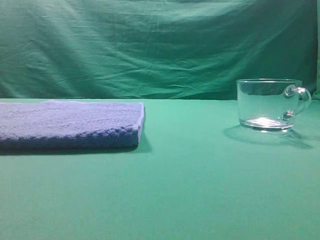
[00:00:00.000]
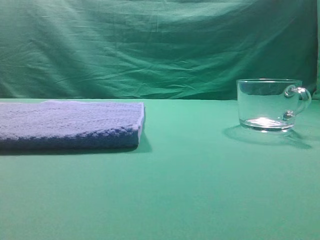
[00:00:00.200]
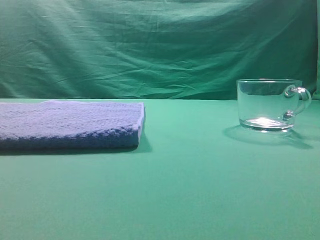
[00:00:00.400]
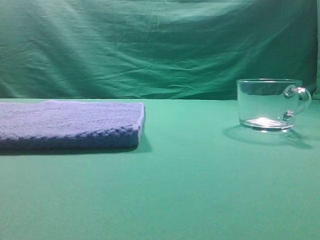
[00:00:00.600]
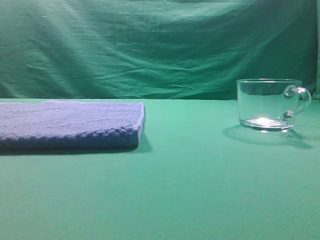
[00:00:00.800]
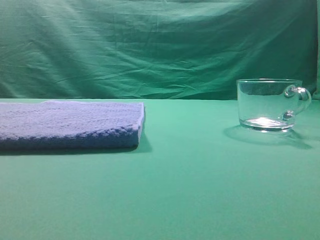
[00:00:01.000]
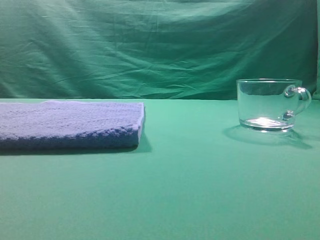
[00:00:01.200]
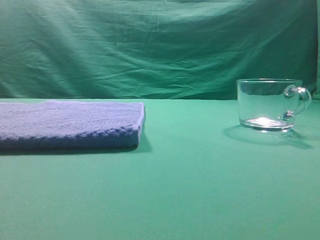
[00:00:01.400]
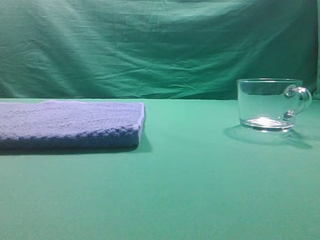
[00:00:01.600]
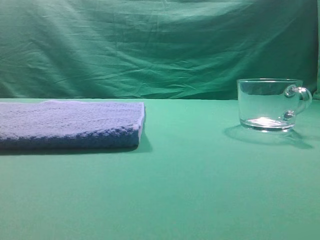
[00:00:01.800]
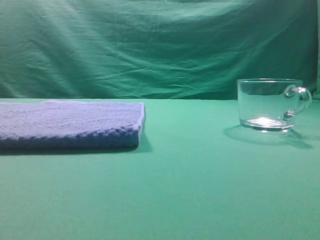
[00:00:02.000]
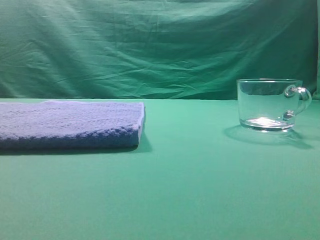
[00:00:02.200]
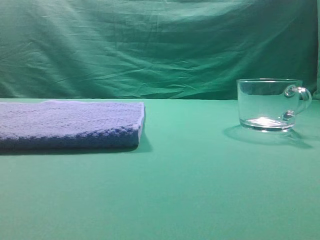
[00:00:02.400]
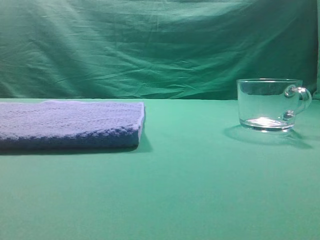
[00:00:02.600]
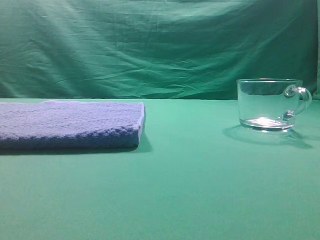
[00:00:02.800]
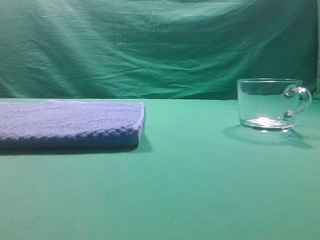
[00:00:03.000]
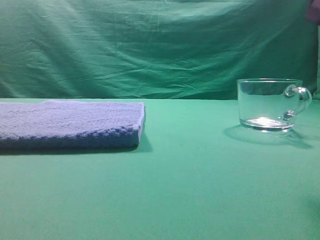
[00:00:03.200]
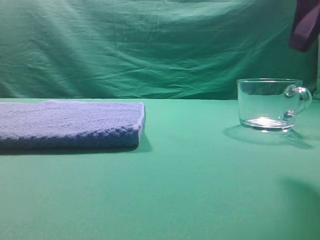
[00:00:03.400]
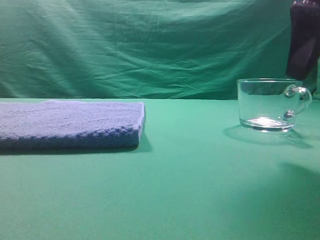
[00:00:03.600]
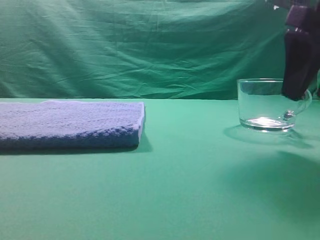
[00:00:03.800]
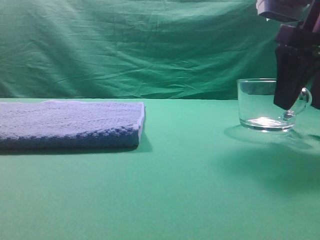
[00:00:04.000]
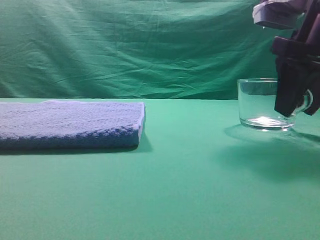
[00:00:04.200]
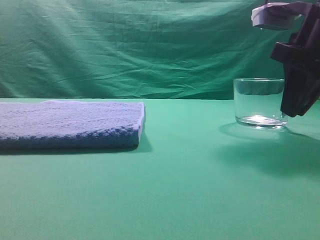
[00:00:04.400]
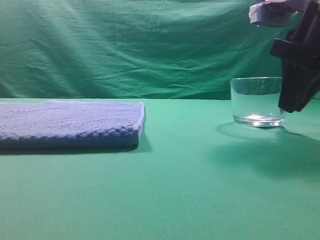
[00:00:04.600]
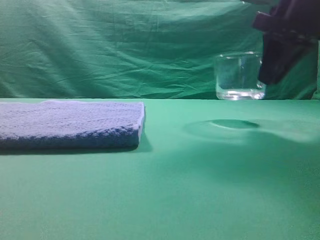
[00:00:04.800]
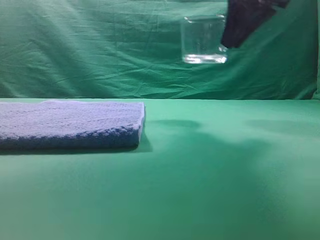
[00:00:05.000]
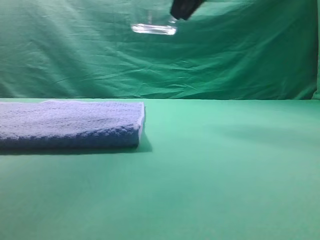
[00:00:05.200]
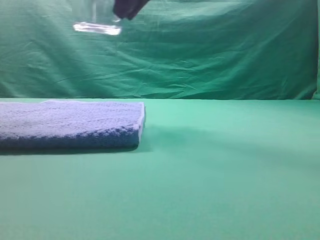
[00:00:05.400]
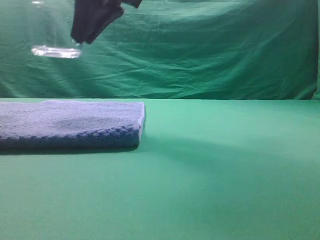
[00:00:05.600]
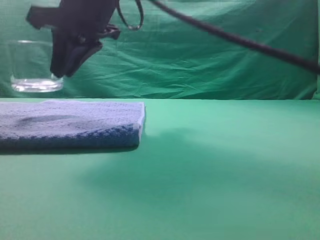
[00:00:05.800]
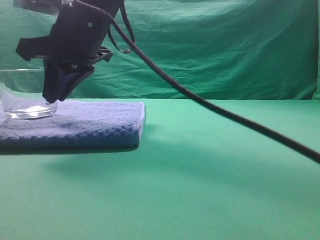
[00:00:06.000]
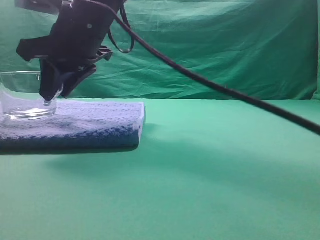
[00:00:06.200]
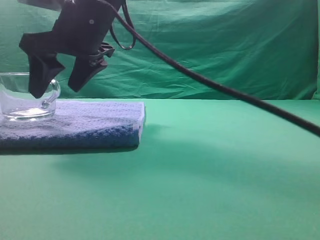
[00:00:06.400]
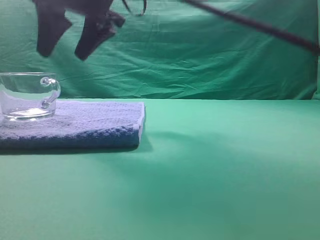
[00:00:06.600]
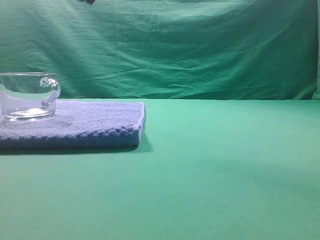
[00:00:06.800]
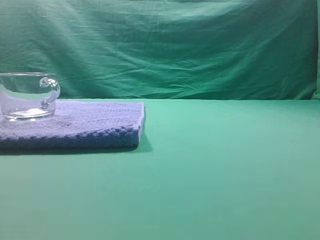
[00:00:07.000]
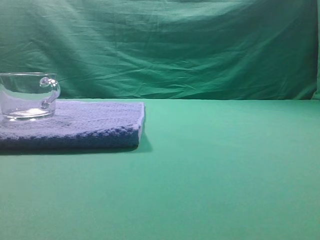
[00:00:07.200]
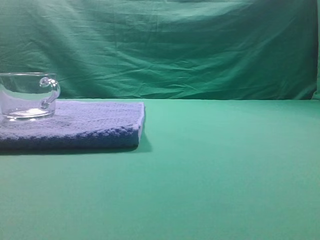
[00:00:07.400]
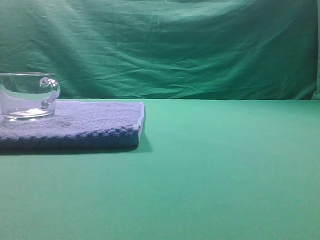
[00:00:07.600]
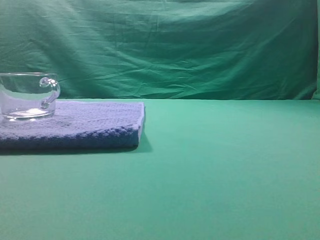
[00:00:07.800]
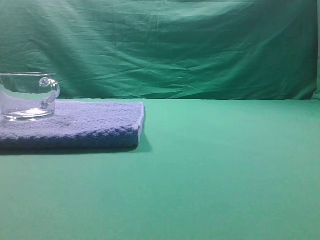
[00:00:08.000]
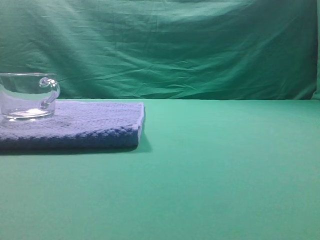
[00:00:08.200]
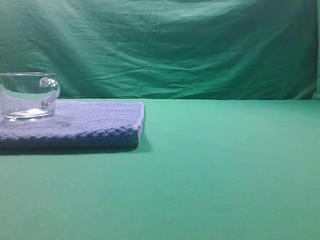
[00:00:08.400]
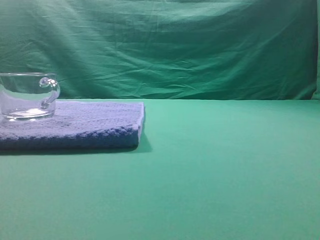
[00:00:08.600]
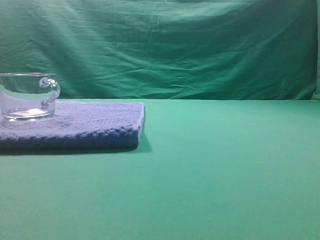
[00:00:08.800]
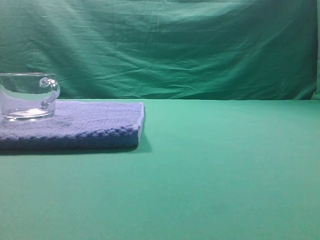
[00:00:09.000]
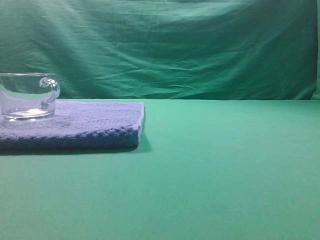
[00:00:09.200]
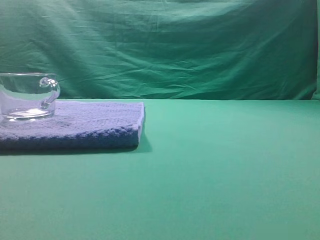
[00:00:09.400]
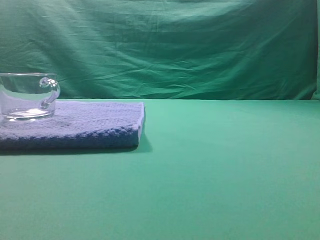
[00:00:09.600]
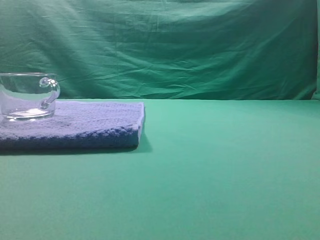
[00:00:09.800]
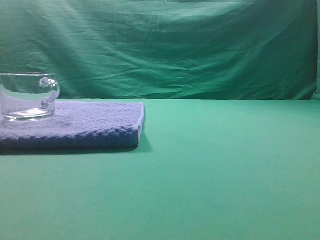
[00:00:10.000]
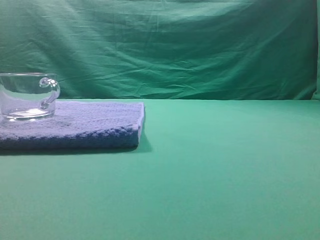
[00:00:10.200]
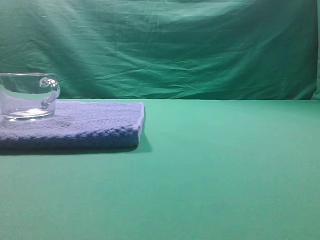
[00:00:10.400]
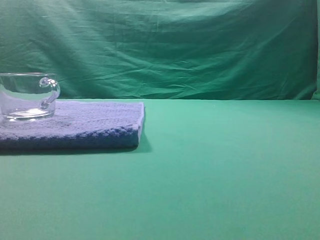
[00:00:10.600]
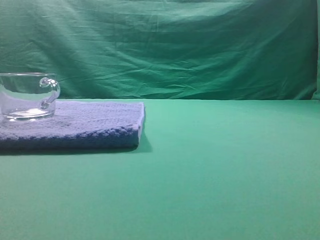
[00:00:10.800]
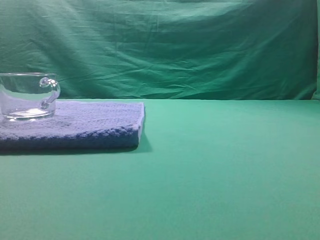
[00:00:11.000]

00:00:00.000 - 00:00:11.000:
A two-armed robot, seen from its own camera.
Task of the whole recording: grasp the transparent glass cup and place it within the blue towel.
Step, 00:00:00.000 - 00:00:04.600: Grasp the transparent glass cup.
Step, 00:00:04.800 - 00:00:06.600: Place the glass cup on the blue zone.

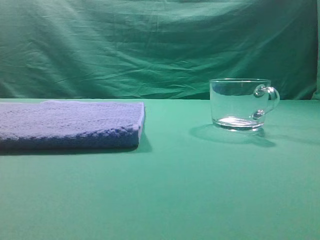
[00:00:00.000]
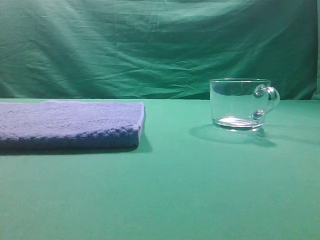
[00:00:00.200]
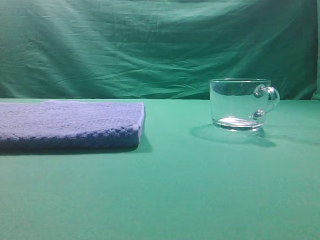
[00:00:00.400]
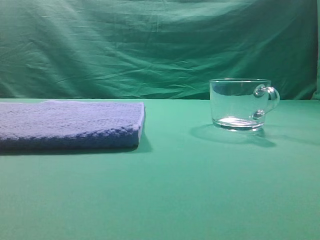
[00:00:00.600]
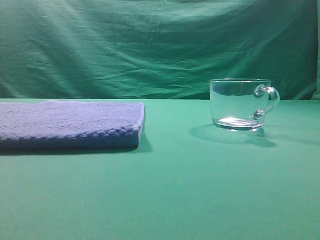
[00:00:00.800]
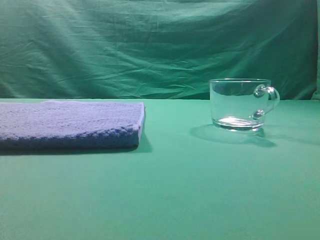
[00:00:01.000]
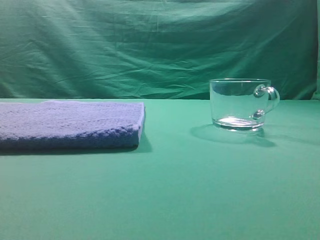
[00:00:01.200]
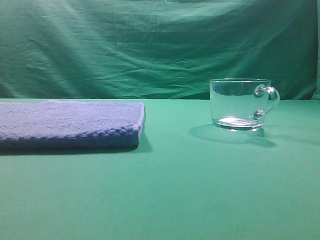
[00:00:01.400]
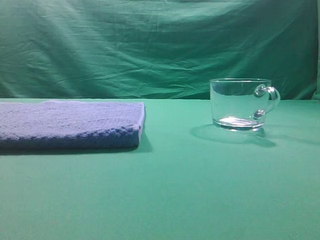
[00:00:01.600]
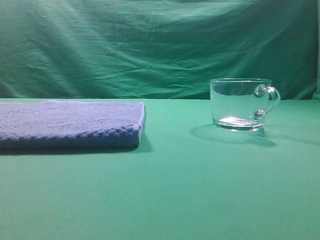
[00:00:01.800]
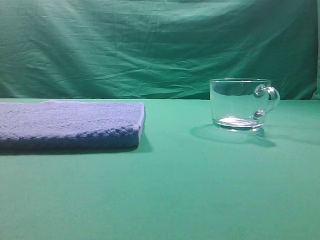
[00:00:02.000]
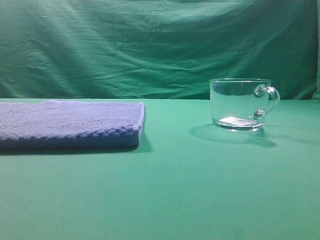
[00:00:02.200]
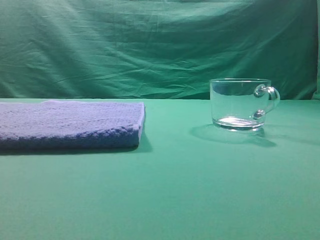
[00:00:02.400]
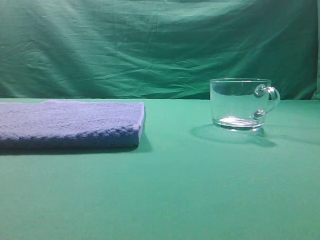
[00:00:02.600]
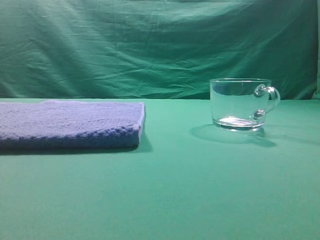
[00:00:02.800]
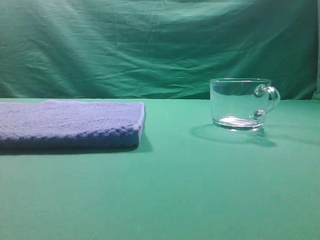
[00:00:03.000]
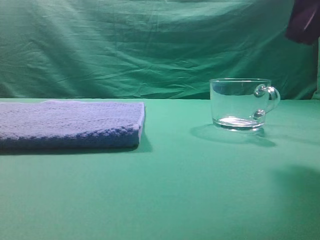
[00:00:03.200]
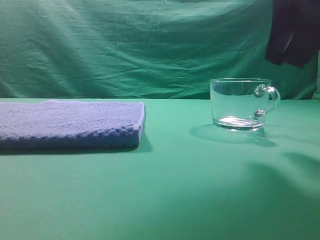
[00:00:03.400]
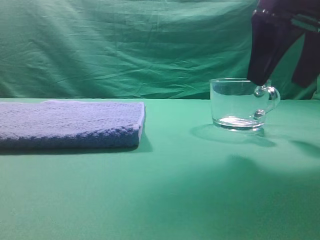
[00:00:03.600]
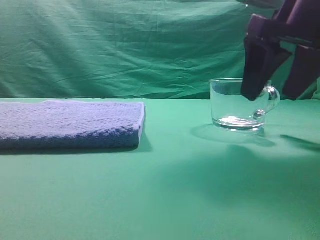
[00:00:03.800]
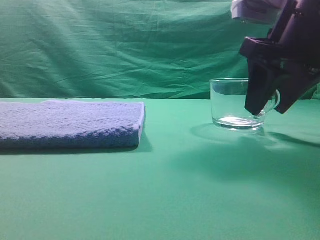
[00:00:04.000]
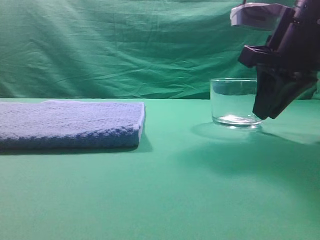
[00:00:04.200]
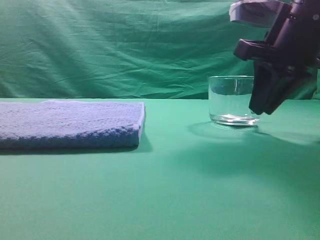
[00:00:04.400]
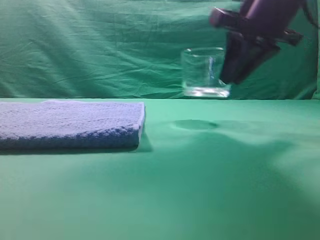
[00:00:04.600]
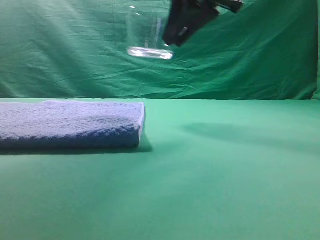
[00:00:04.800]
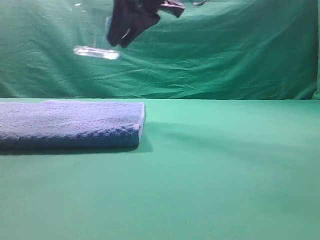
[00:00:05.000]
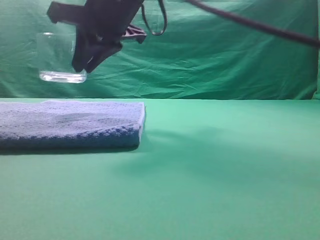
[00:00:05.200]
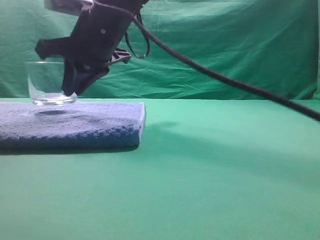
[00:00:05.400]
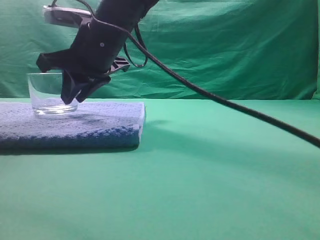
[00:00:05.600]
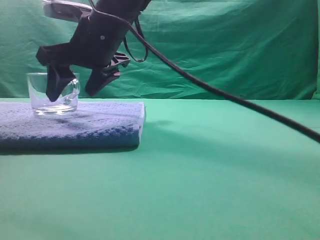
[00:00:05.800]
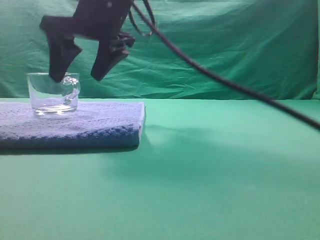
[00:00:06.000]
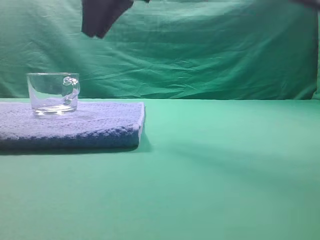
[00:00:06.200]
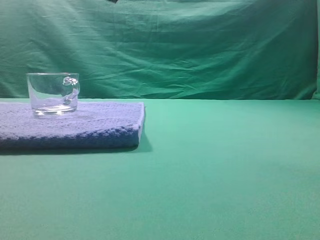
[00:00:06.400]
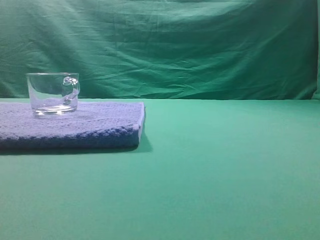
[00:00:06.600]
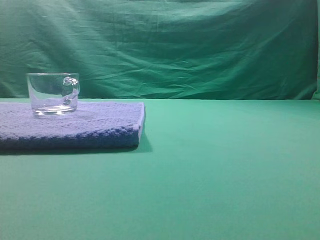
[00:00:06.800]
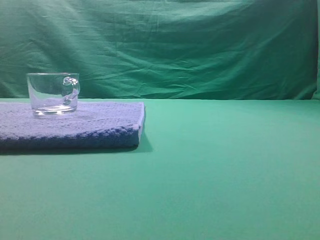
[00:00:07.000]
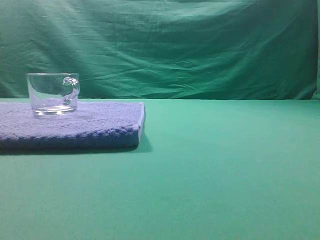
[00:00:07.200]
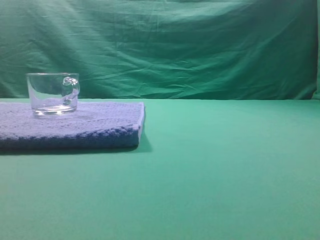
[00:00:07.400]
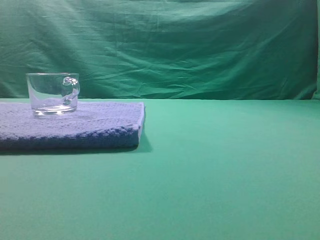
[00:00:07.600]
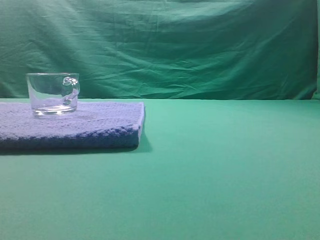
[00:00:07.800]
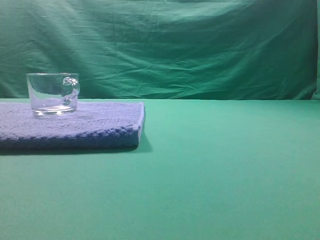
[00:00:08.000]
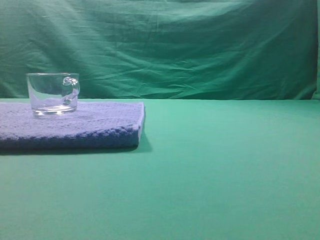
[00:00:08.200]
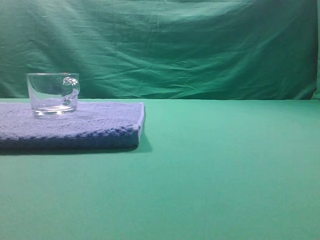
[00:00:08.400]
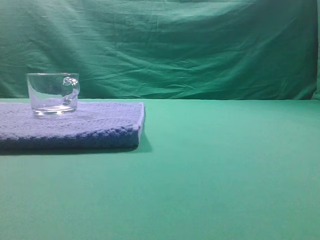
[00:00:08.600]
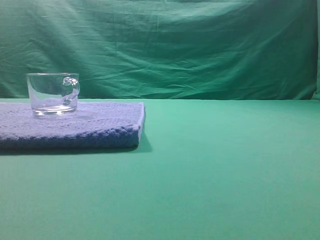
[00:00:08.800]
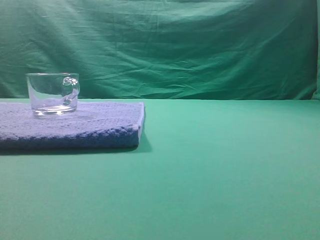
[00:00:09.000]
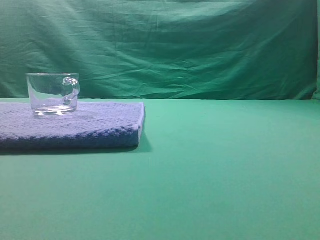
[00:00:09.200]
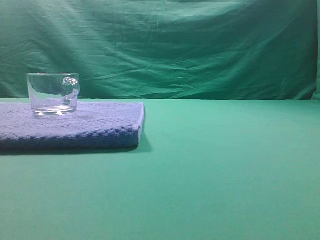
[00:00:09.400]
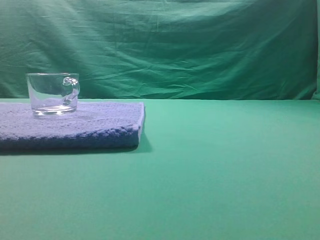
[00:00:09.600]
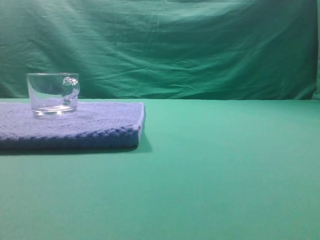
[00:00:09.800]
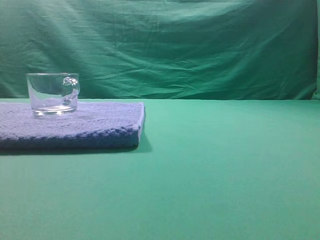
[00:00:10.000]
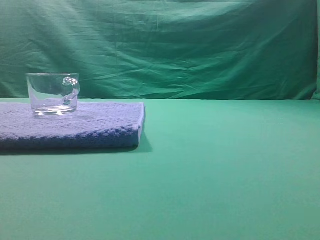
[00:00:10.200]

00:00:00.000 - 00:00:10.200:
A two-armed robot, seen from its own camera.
Task of the whole recording: grasp the transparent glass cup and place it within the blue towel.
Step, 00:00:00.000 - 00:00:04.400: Grasp the transparent glass cup.
Step, 00:00:04.600 - 00:00:06.000: Place the glass cup on the blue zone.
